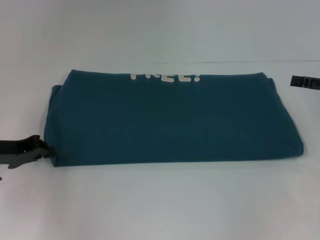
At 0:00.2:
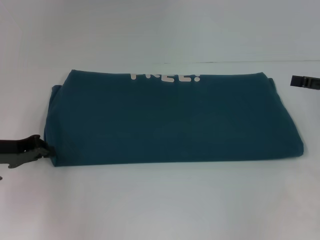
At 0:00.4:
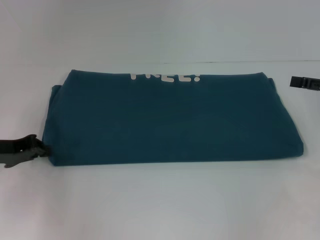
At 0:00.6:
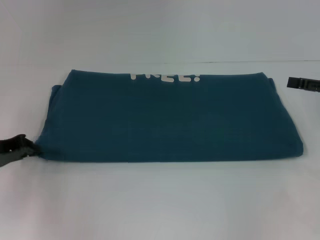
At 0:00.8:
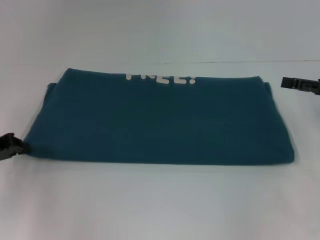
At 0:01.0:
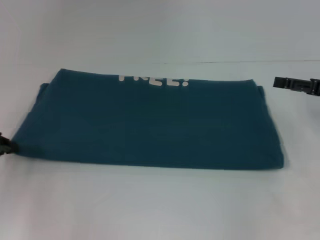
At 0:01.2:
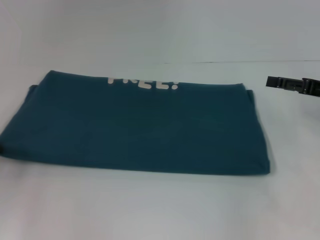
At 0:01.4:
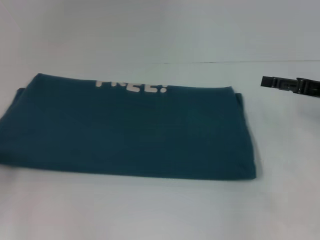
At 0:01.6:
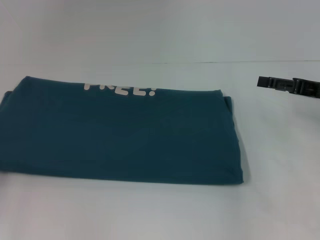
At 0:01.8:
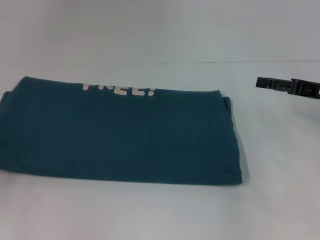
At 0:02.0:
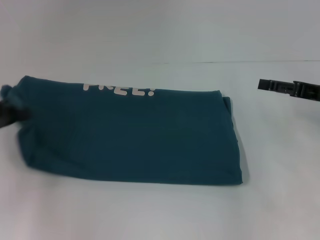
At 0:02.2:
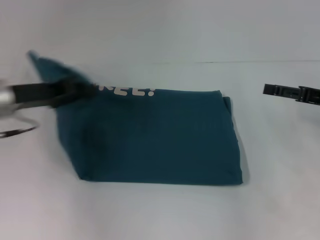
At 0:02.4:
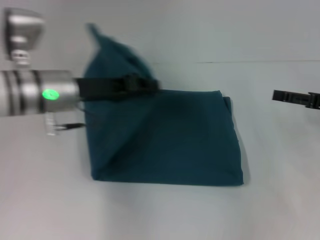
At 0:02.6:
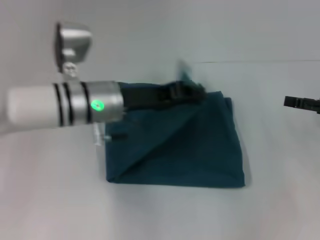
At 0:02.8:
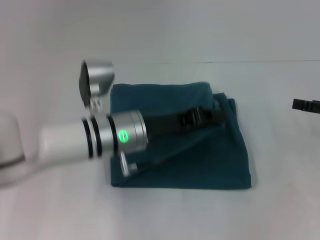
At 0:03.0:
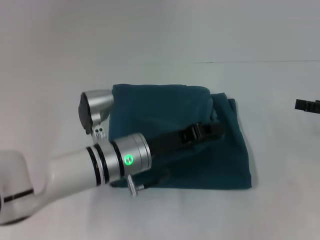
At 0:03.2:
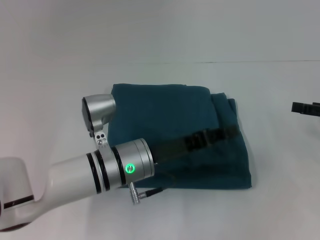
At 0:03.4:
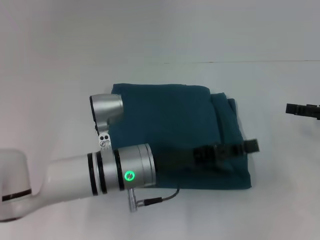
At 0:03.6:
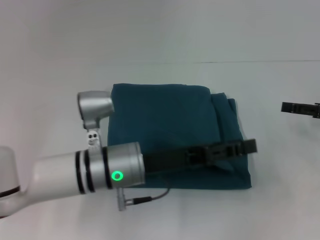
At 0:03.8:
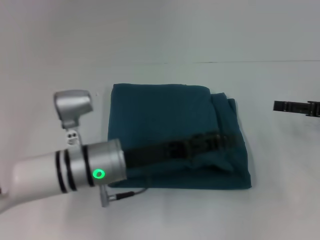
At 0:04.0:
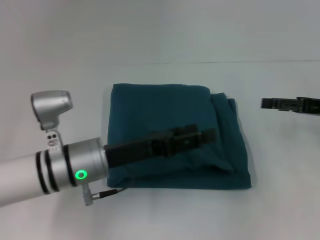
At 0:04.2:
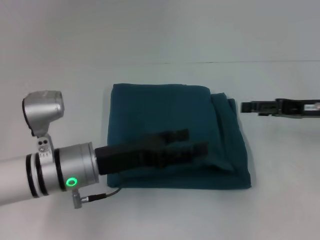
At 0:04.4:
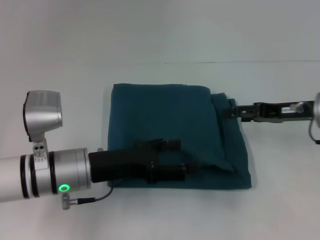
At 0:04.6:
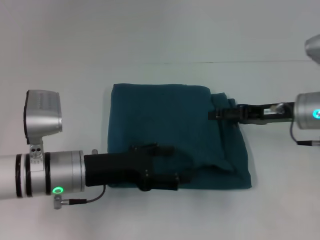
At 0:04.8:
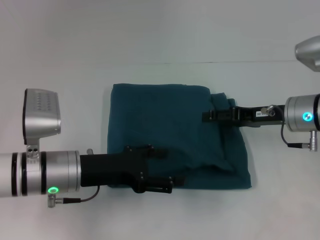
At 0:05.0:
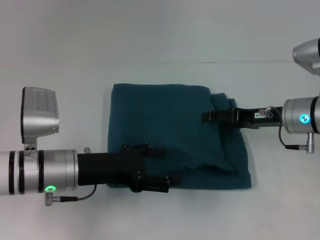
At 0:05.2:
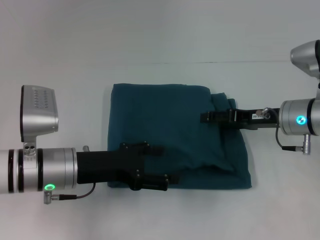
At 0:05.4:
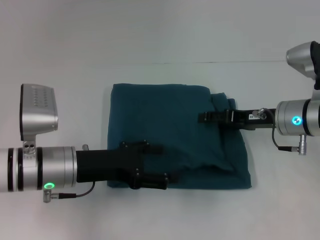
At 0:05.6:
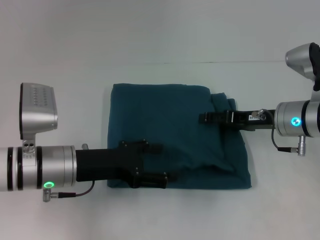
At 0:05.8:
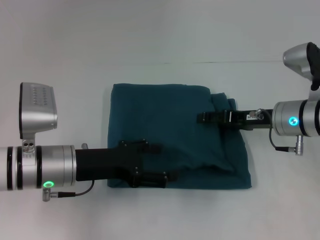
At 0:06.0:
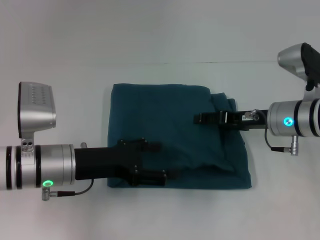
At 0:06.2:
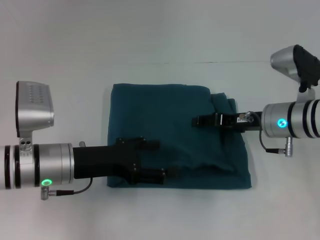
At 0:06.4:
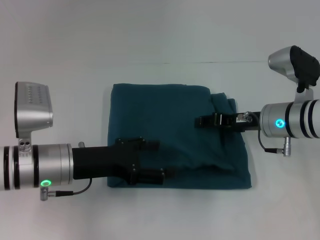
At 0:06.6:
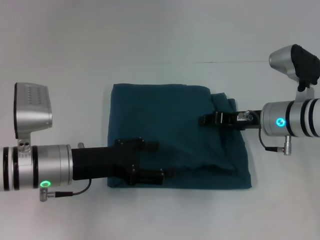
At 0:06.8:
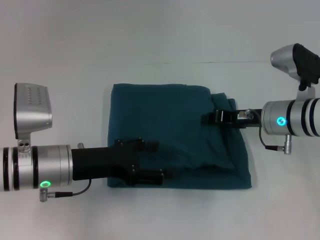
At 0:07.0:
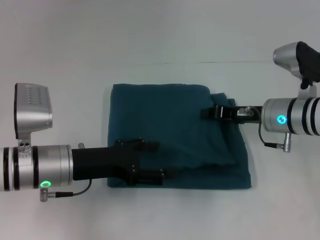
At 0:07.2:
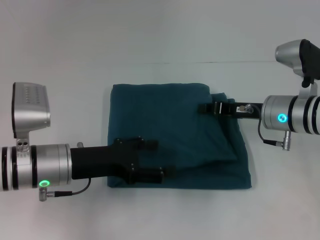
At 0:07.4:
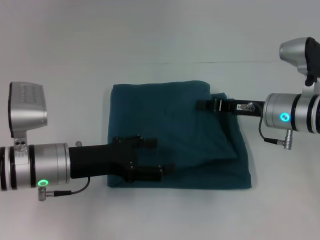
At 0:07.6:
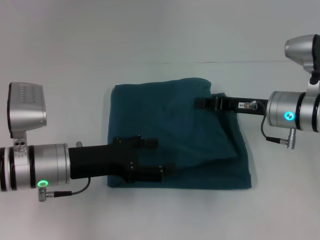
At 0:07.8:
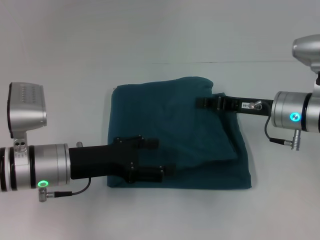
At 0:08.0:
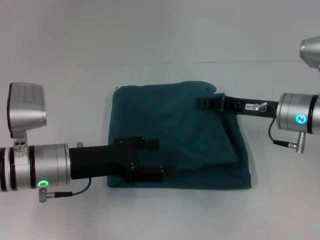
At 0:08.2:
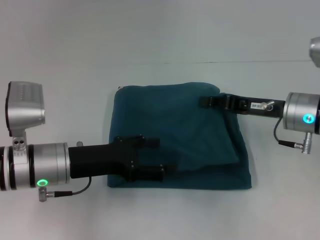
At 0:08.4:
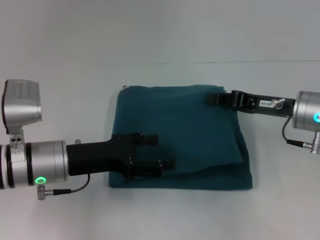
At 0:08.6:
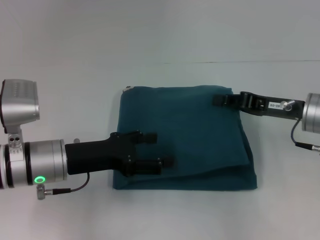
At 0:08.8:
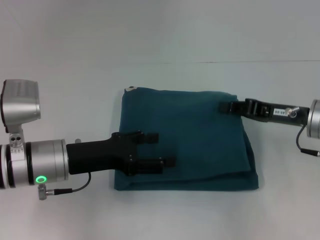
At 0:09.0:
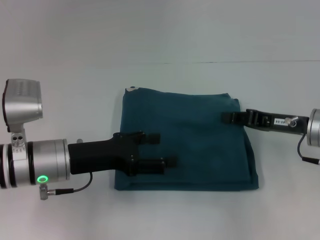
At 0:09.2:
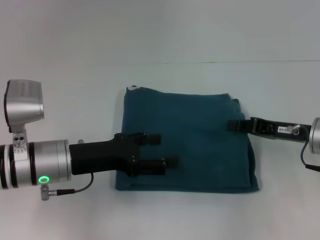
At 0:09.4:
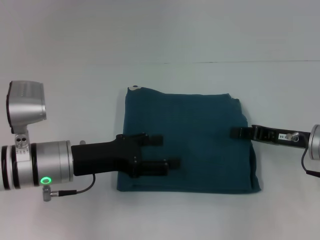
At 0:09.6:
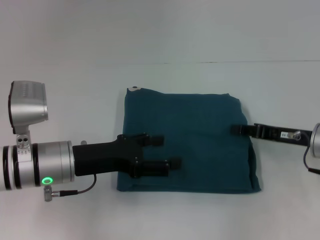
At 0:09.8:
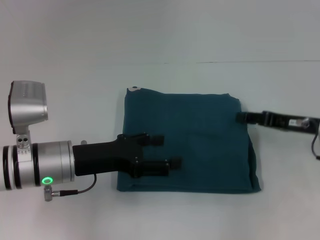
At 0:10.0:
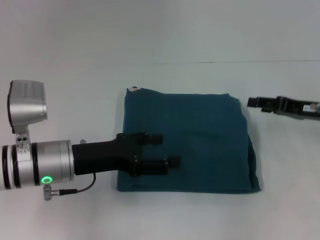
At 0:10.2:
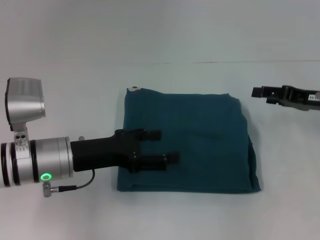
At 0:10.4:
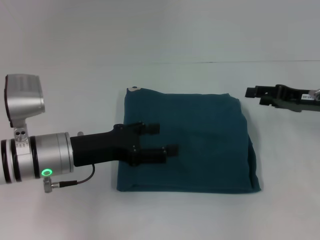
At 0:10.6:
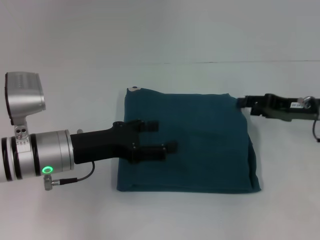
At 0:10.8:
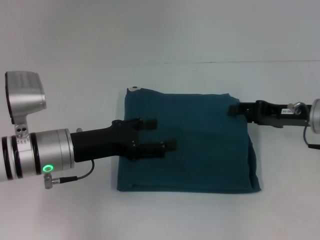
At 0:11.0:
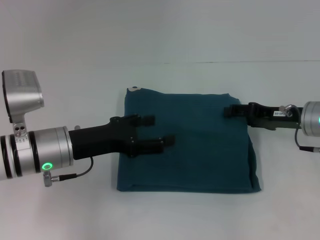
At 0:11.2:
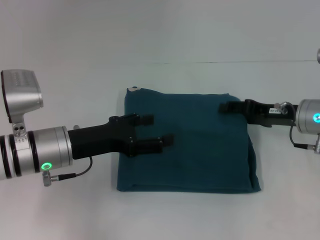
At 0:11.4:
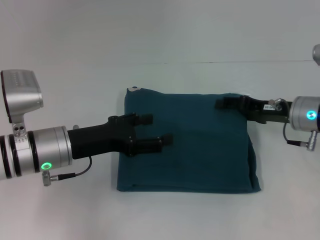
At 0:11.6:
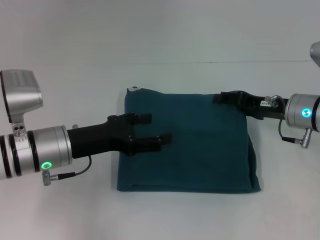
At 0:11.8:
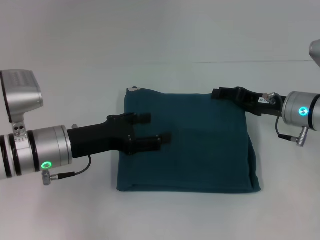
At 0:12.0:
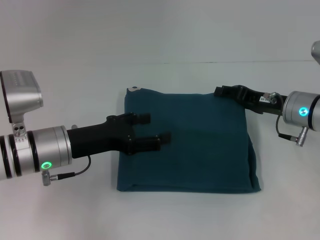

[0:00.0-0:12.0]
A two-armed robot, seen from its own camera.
Step, 0:00.0 to 0:03.4: Fold the clothes to the left.
0:00.0 to 0:01.6: The right gripper changes place by about 5 cm; the left gripper is displaced to the left by some 10 cm.
0:01.6 to 0:03.0: The right gripper shifts approximately 5 cm to the right, while the left gripper travels to the right by about 35 cm.
0:03.0 to 0:04.4: The two grippers go roughly 10 cm to the left. The left gripper opens up.
0:04.4 to 0:06.0: The right gripper goes approximately 5 cm to the left.
0:06.0 to 0:07.6: The right gripper closes up.
0:07.6 to 0:09.0: The right gripper moves to the right, roughly 5 cm.
0:09.0 to 0:10.4: The right gripper shifts by about 5 cm, and opens up.
0:10.4 to 0:12.0: The right gripper goes about 5 cm to the left.

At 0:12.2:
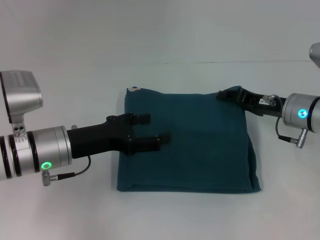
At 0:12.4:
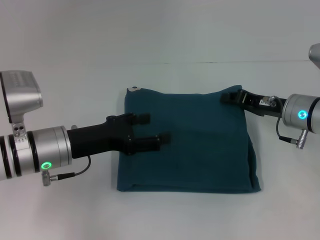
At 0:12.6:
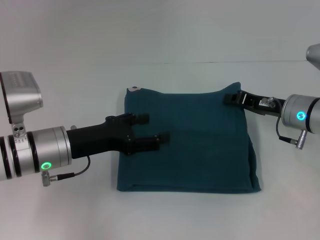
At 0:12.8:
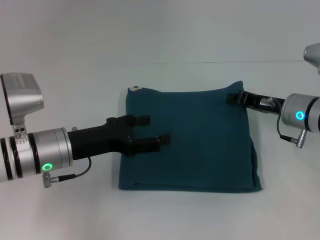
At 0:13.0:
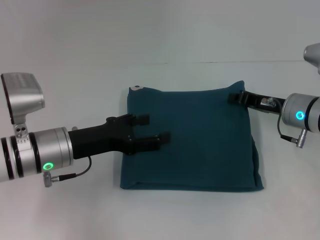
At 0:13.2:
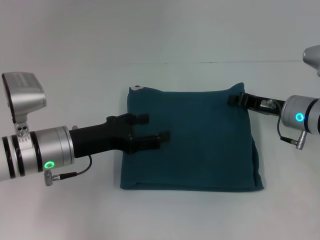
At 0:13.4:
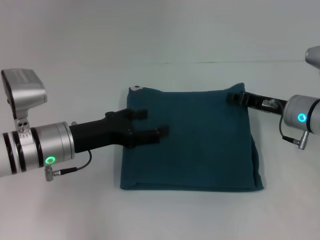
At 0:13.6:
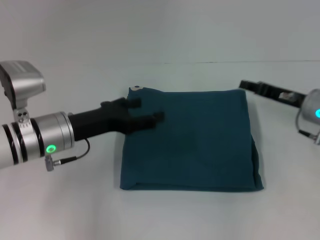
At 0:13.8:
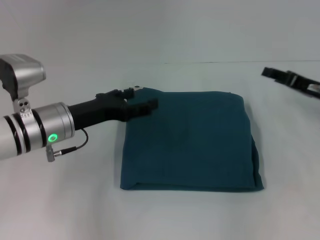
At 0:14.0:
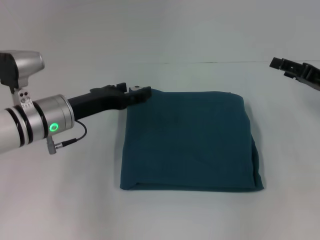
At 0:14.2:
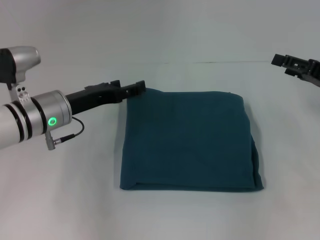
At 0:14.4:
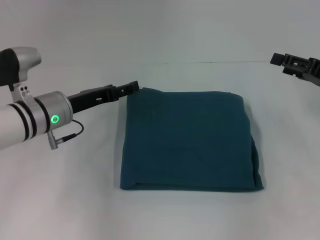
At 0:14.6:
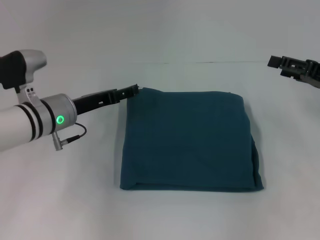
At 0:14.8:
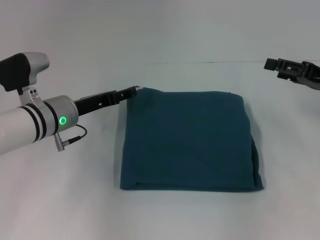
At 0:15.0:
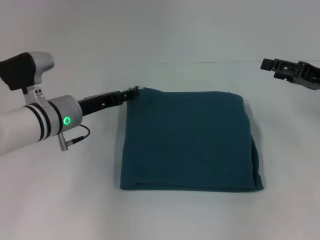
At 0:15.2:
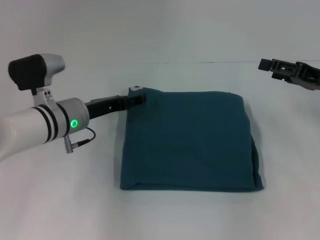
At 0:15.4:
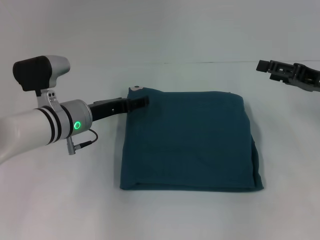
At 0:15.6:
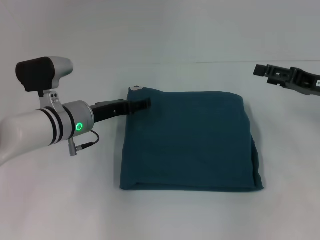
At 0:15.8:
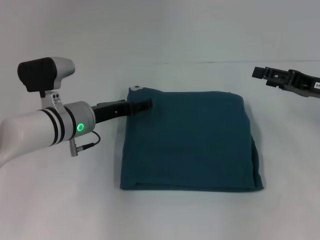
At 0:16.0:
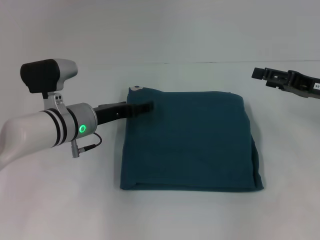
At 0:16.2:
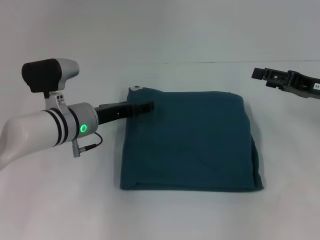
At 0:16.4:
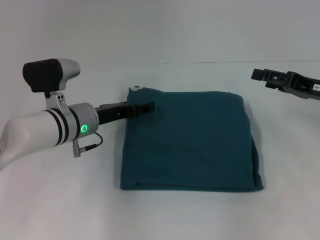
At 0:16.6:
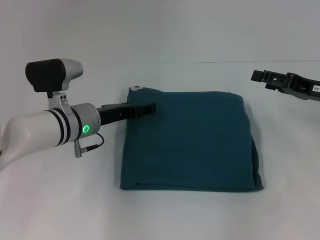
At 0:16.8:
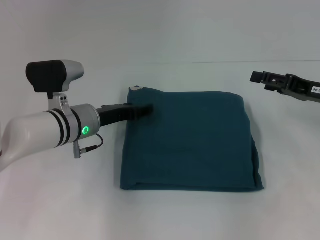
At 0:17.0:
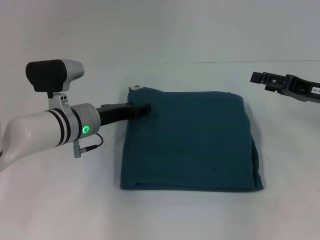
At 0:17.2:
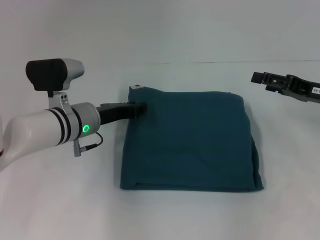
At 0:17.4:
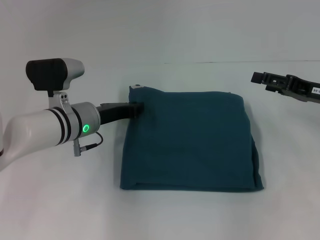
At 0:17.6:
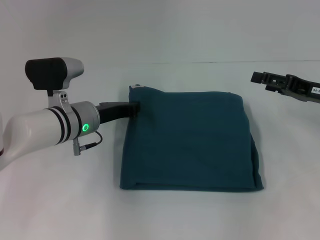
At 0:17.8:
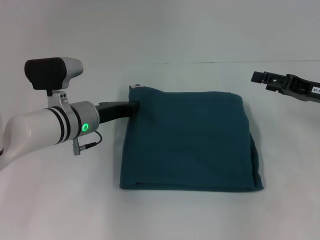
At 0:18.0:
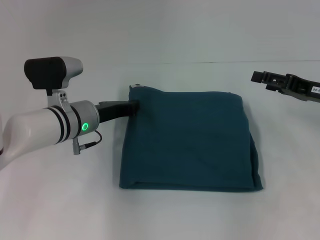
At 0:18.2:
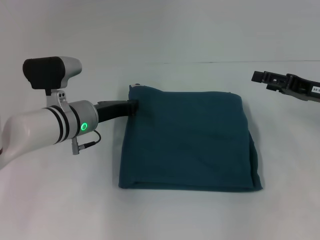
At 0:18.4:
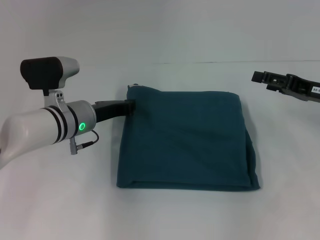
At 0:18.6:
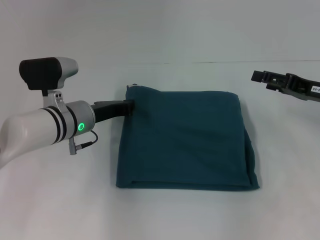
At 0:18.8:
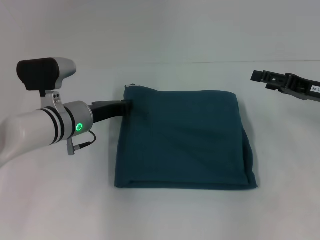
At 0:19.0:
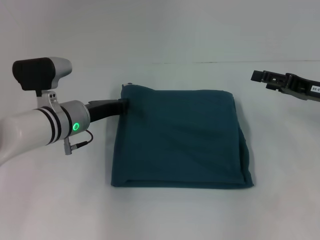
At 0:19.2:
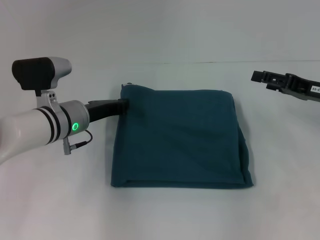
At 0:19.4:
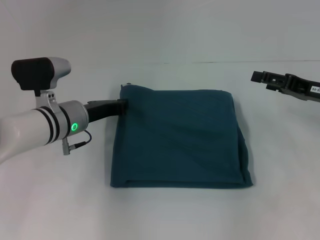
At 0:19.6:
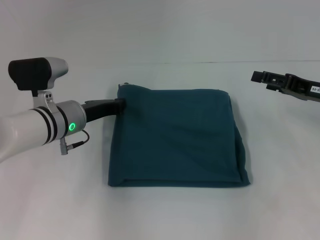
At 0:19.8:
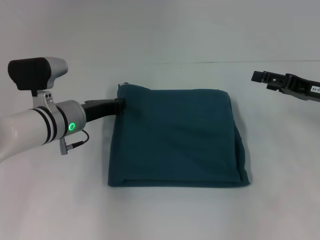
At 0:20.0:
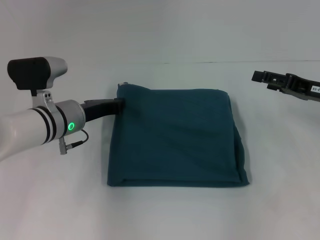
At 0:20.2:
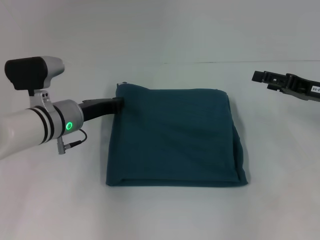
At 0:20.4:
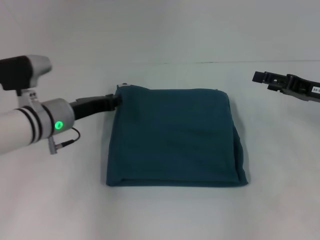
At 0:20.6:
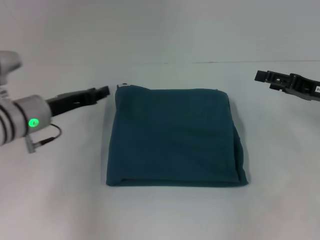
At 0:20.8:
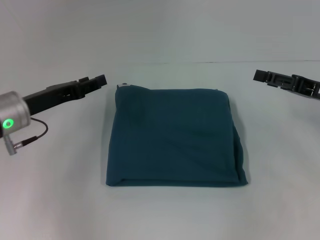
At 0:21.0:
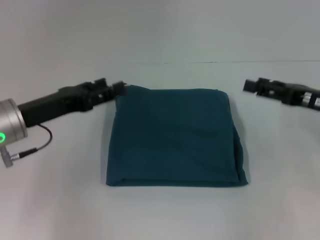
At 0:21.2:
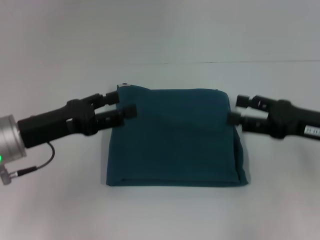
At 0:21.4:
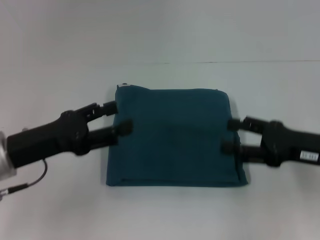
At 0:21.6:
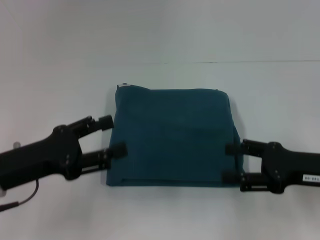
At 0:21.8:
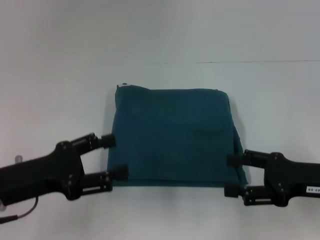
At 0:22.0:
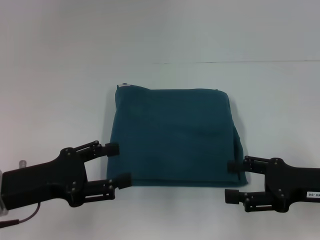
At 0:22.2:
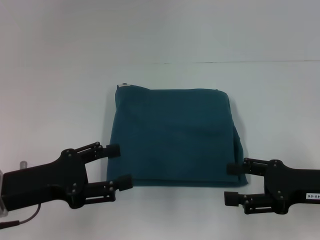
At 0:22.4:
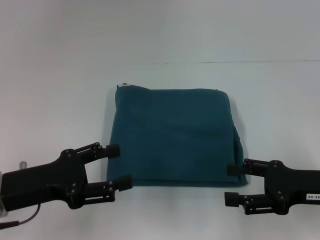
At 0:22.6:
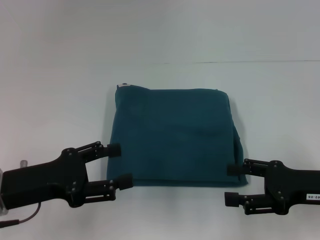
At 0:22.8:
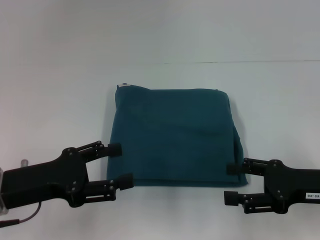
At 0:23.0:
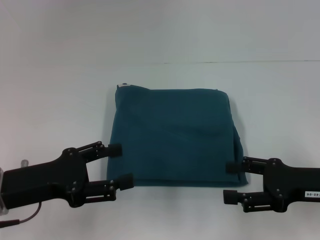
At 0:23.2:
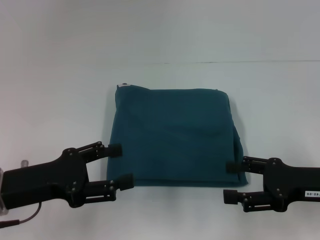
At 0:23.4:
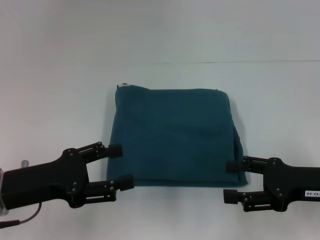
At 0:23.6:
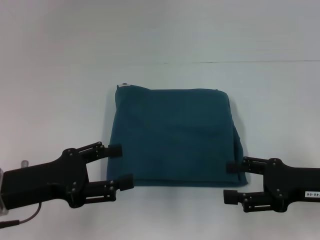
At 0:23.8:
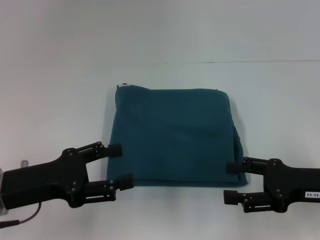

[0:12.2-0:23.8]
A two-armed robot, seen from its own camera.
0:12.2 to 0:13.6: The right gripper closes.
0:13.6 to 0:15.0: The left gripper ends up approximately 5 cm from where it was, while the right gripper travels to the right and upward by roughly 10 cm, and opens.
0:15.0 to 0:16.6: The grippers stay close to where they were, moving slightly.
0:16.6 to 0:18.0: The left gripper closes its fingers.
0:18.0 to 0:19.4: The grippers stay close to where they were, moving slightly.
0:19.4 to 0:21.0: The left gripper is displaced to the left, backward and upward by about 10 cm, and opens up.
0:21.0 to 0:22.4: The two grippers go some 10 cm backward.
0:22.4 to 0:23.8: Neither gripper changes place.
